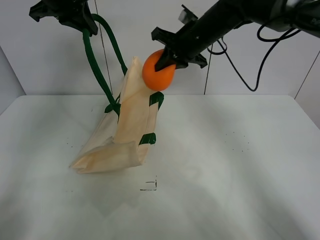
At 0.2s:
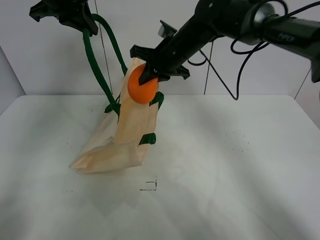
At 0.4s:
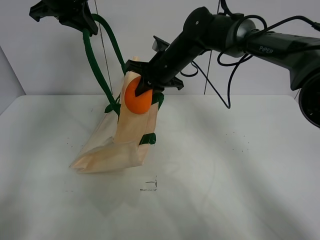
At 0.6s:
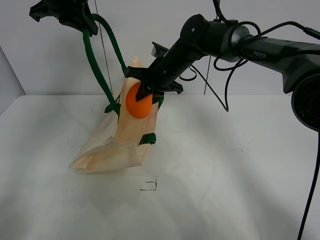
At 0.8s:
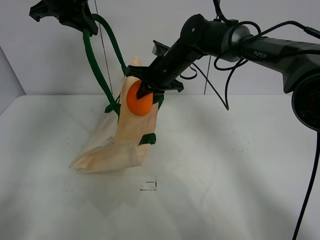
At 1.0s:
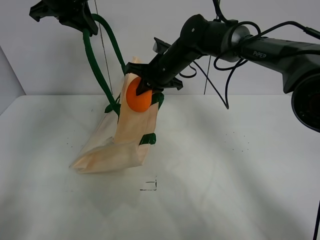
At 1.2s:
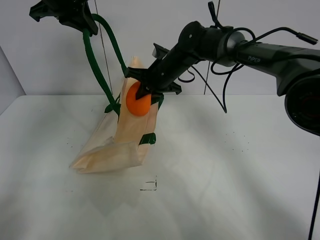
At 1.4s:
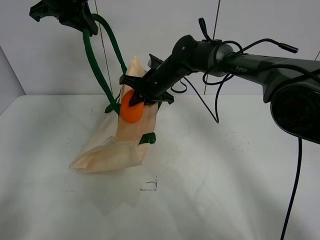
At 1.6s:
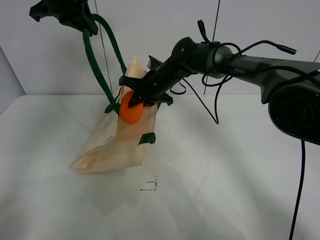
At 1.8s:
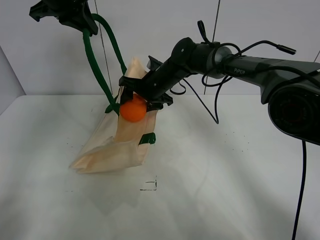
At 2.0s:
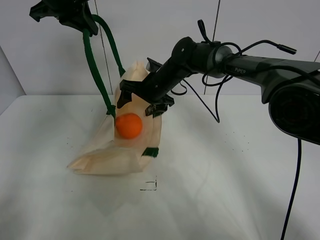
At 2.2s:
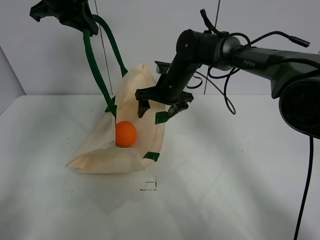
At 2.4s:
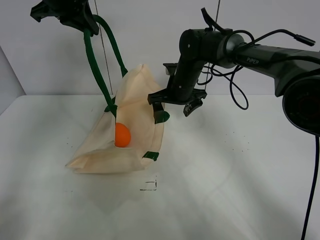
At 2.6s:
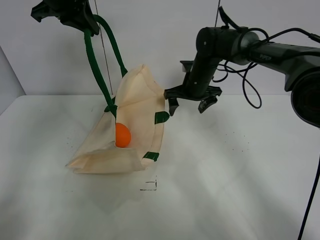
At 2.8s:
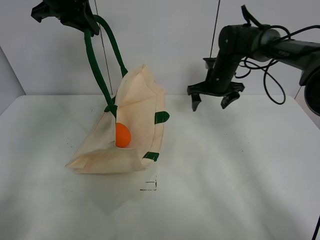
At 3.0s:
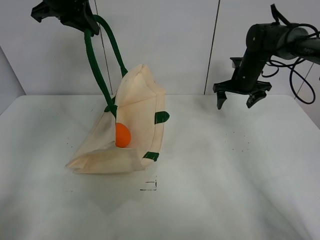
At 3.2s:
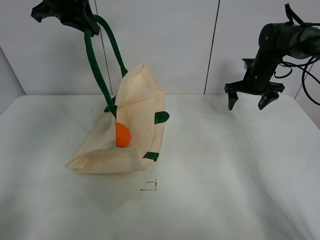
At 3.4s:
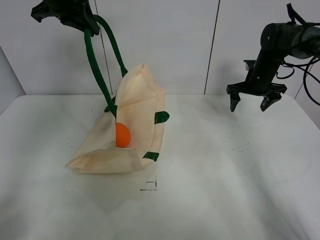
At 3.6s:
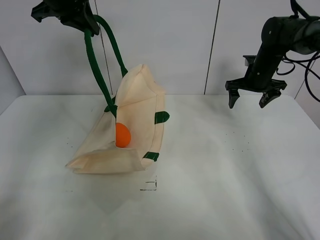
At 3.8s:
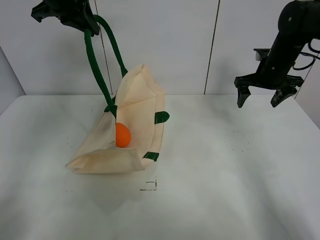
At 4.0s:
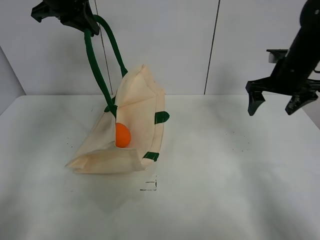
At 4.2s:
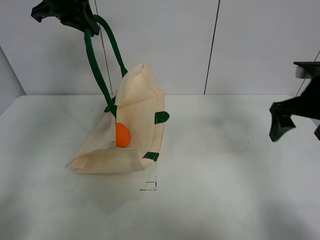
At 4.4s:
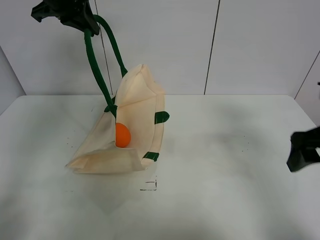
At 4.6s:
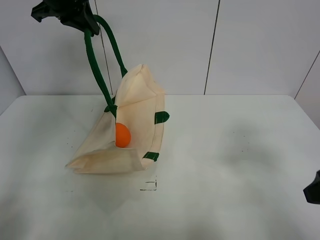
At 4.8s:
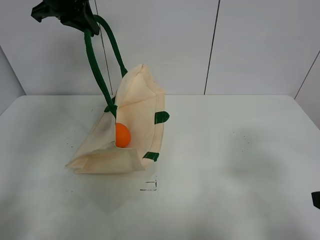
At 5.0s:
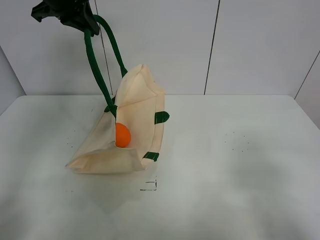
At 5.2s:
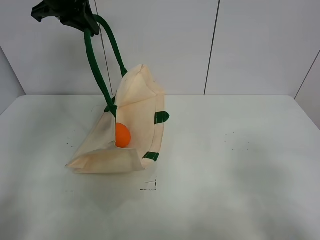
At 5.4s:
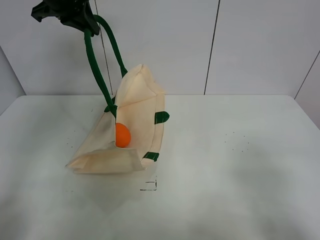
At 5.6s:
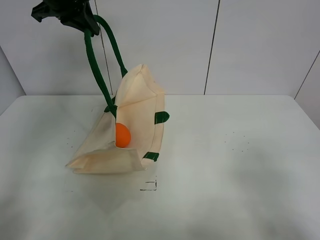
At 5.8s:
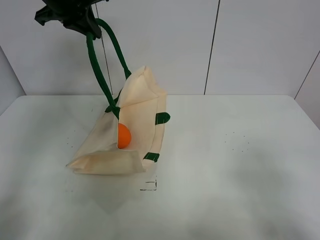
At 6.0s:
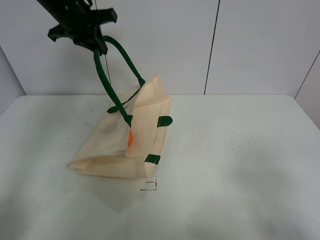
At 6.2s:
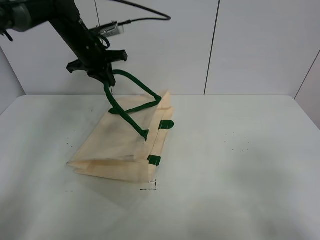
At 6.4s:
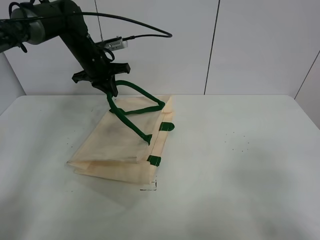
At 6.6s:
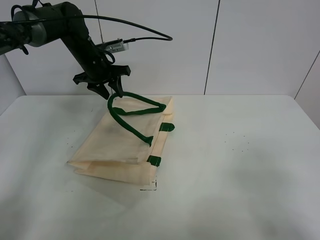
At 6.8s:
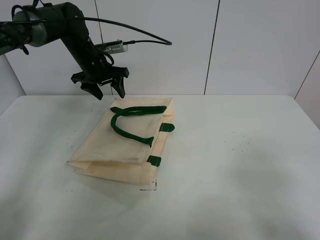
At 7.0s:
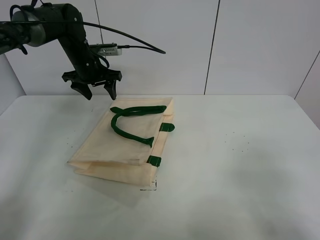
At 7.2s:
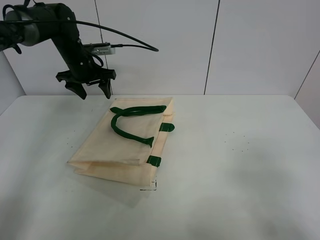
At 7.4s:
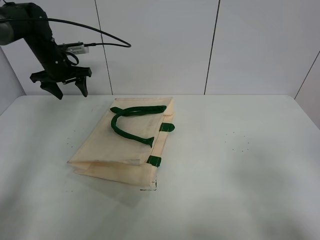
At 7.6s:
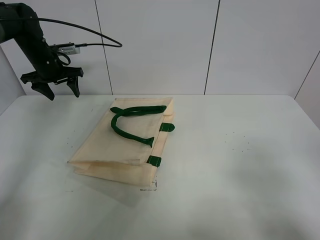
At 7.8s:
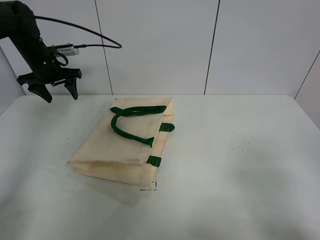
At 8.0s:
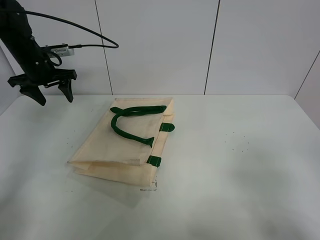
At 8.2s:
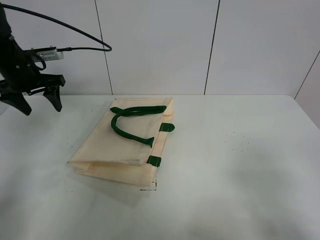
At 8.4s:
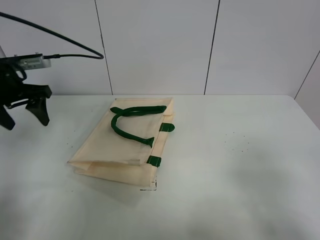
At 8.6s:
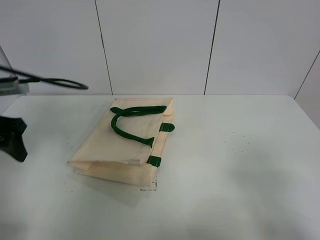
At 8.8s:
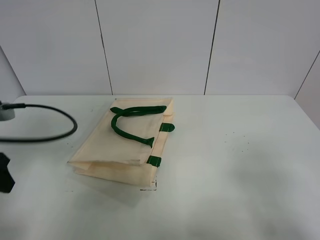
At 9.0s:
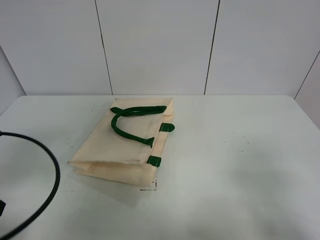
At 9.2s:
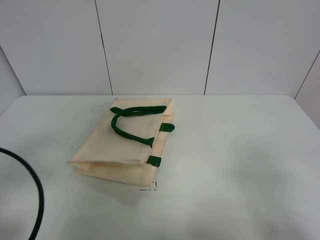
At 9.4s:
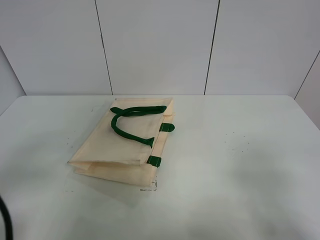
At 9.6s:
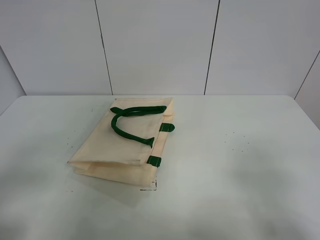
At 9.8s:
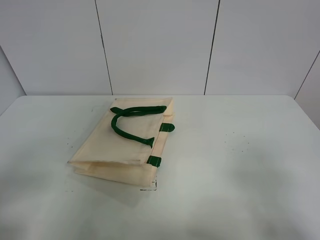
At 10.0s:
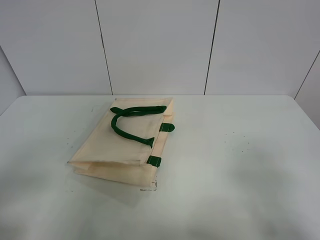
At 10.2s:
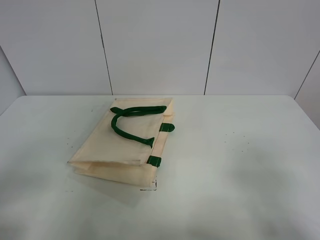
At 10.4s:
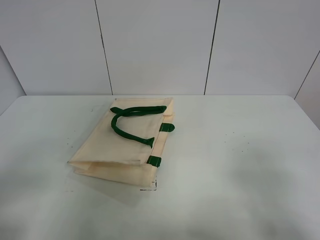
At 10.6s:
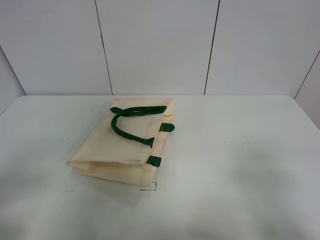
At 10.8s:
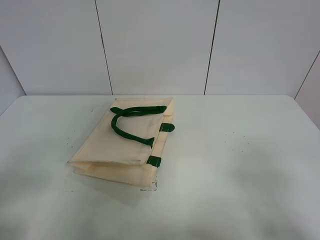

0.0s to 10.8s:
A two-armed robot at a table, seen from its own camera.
Task of the whole recording: open the white linen bag and put the orange in the bag.
Step, 0.0s to 2.4s: Place the orange in the handbag with right gripper.
Step, 2.6s to 7.2s: Put down the handbag with left gripper.
0.0s to 1.6s: The right gripper is displaced downward and to the left by about 15 cm.
1.6s to 3.0s: The right gripper shifts roughly 25 cm to the right, and opens its fingers.
3.0s to 4.6s: The right gripper moves backward, approximately 35 cm.
4.6s to 6.2s: The right gripper is displaced backward by approximately 10 cm, while the left gripper heads downward and forward, covering about 15 cm.
6.2s to 7.8s: The left gripper travels to the left by some 15 cm, and opens up.
7.8s to 9.2s: The left gripper moves backward, roughly 40 cm.
9.2s to 10.8s: The left gripper heads backward, covering roughly 5 cm.
